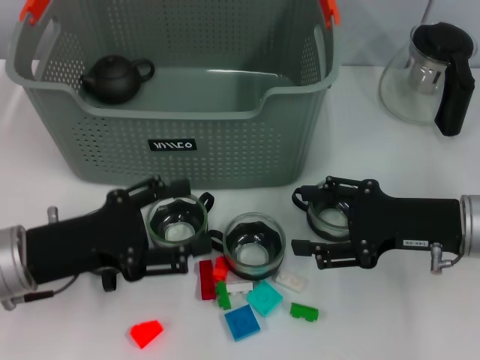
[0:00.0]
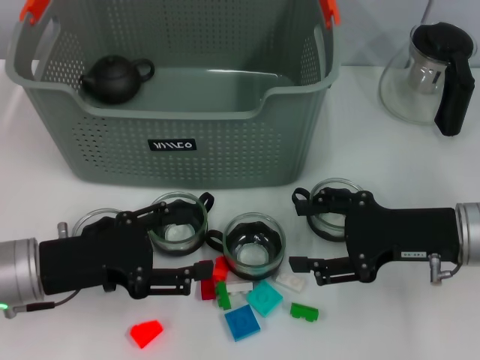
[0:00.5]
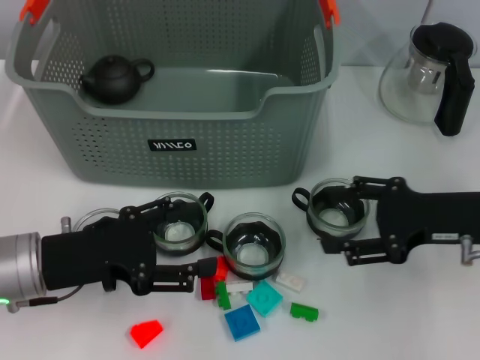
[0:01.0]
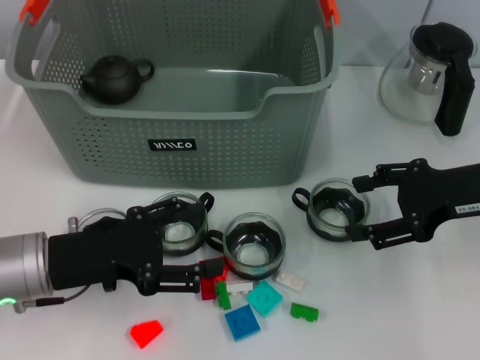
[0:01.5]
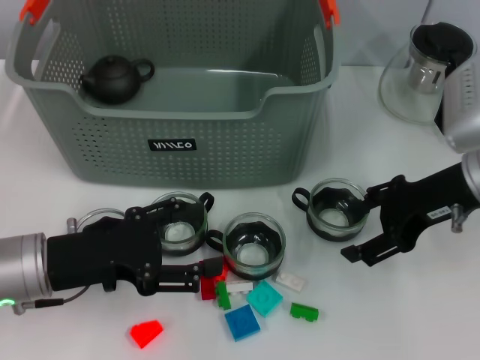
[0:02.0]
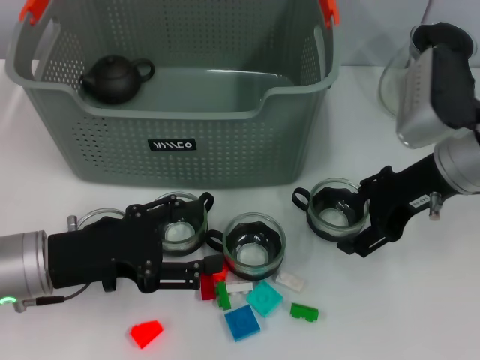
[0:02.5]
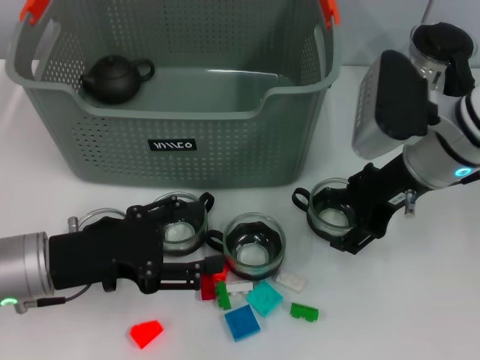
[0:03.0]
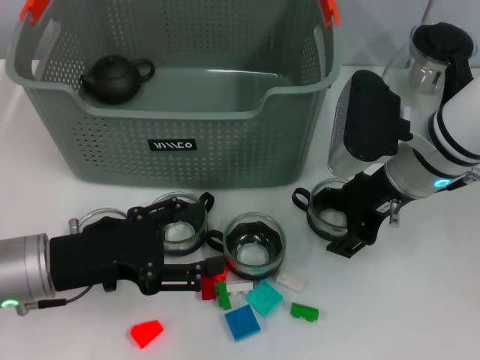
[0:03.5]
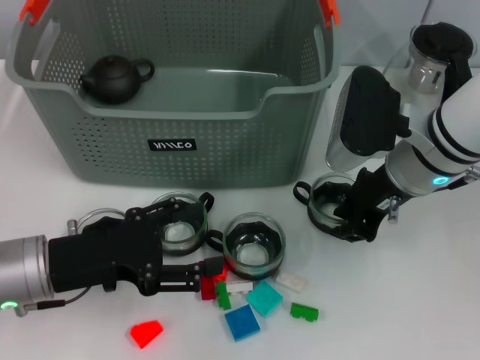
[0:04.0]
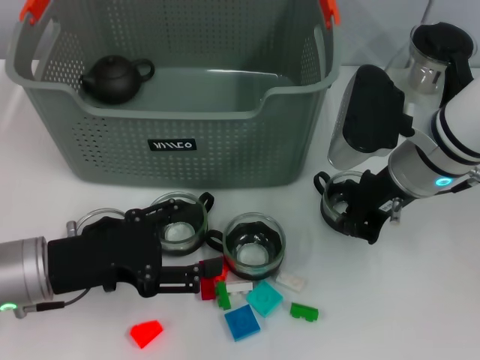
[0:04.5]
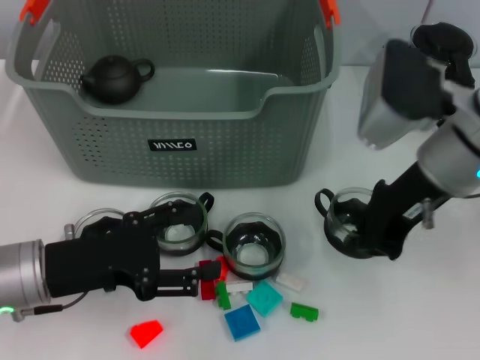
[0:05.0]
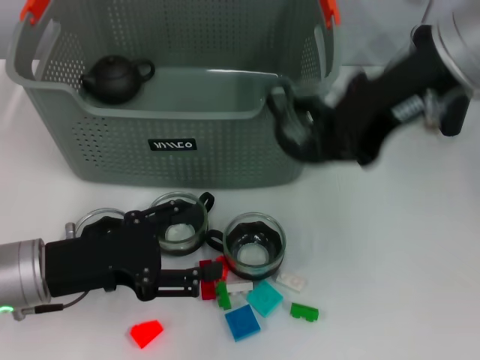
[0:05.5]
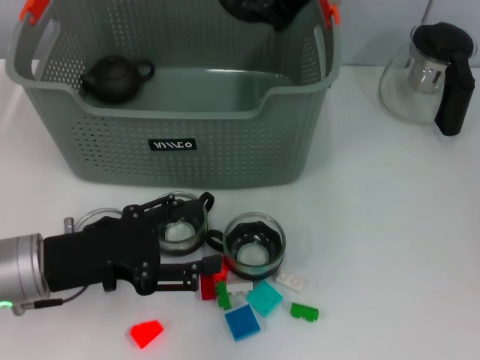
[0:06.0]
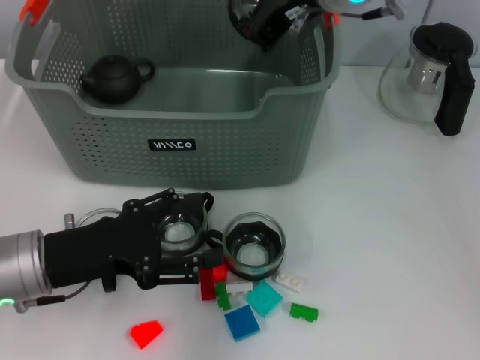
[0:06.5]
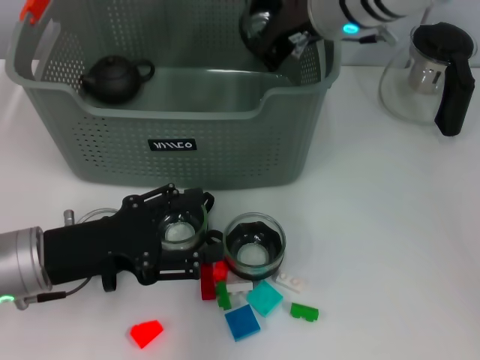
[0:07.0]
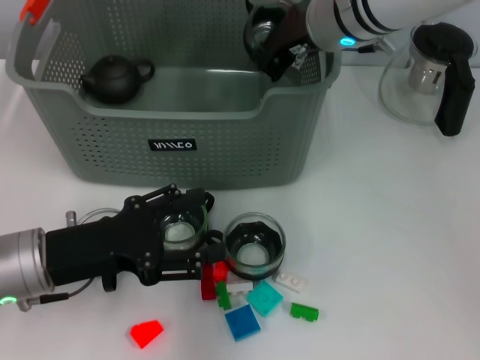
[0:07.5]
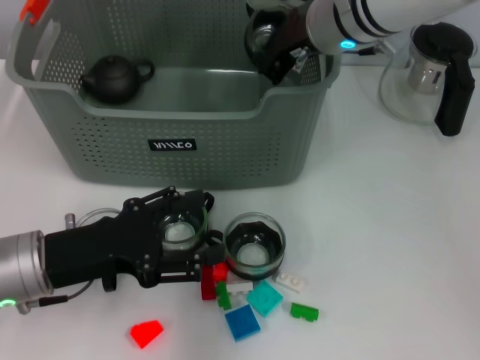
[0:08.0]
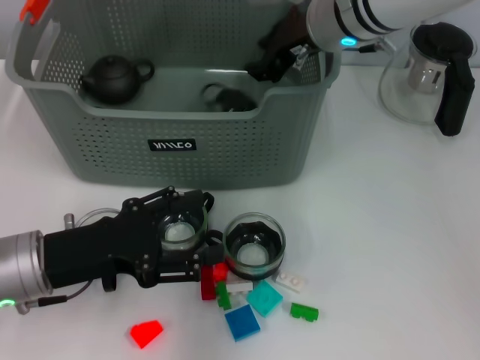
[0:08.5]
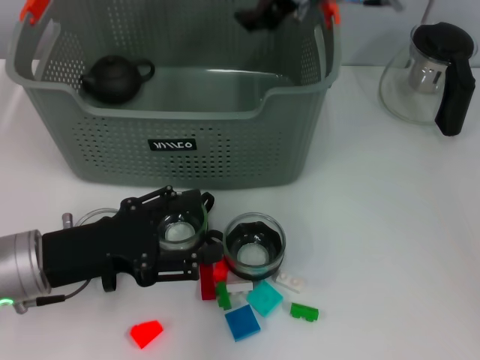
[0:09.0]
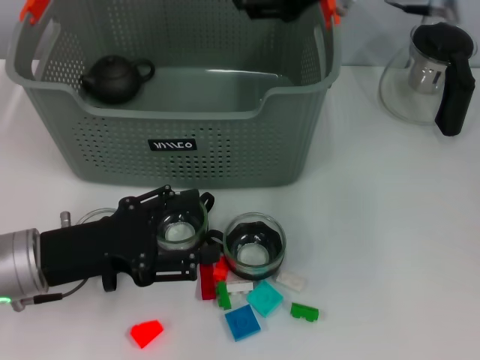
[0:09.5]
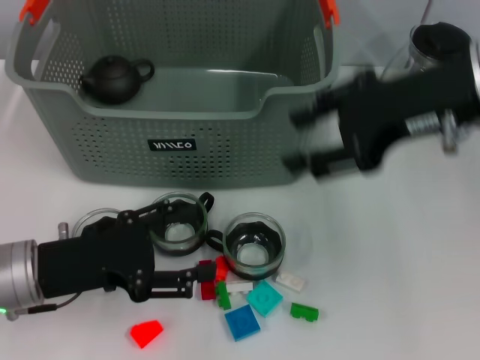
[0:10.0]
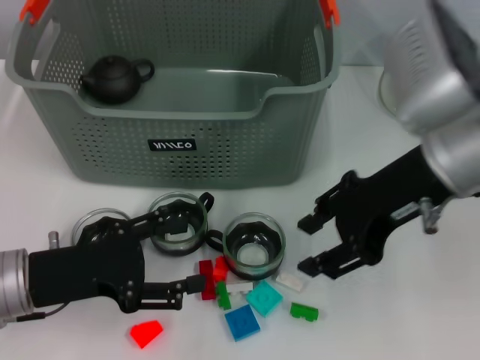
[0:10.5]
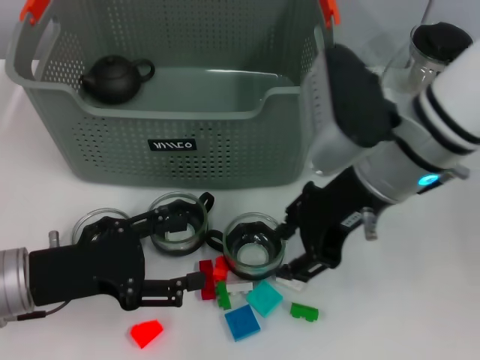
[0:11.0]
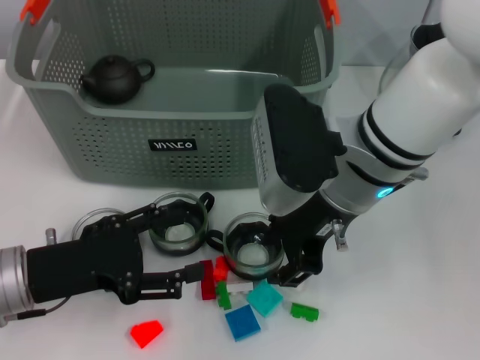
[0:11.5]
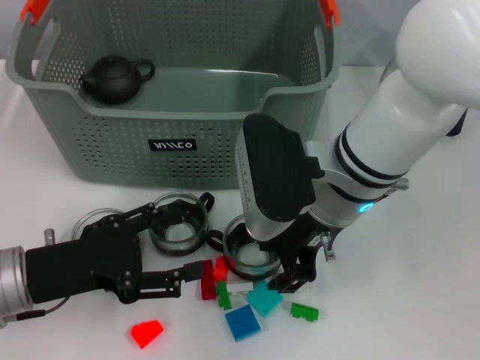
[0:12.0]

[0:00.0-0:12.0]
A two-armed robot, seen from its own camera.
Task of the whole recording: pick up the teacup on the table and place it into the storage bin, pick up the block on the table and place it into the storage bin.
Step, 0:00.0 to 0:04.5: Grasp the cup with right gripper.
Step, 0:05.0 to 0:08.0: Place the cup in the storage box with right gripper.
0:00.0 to 0:02.0: The right gripper travels upward by some 5 cm.
0:02.0 to 0:04.0: The right gripper travels to the left by approximately 10 cm, and closes.
0:04.0 to 0:06.0: The right gripper shifts about 20 cm upward, and closes up.
0:06.0 to 0:08.0: The right gripper goes roughly 15 cm downward and forward.
0:08.0 to 0:10.0: The right gripper moves backward, to the right and upward, some 15 cm, and opens up.
0:10.0 to 0:12.0: The right gripper goes some 15 cm to the left and downward.

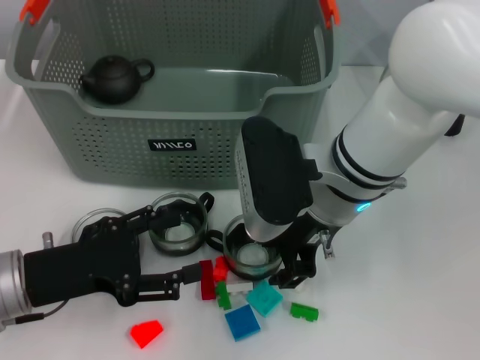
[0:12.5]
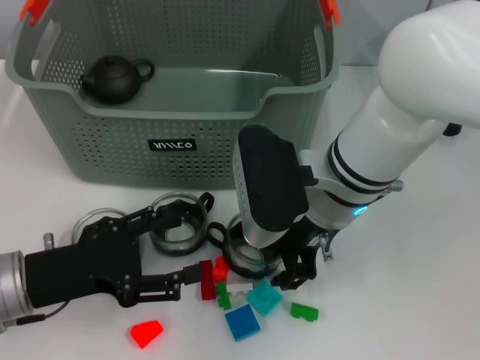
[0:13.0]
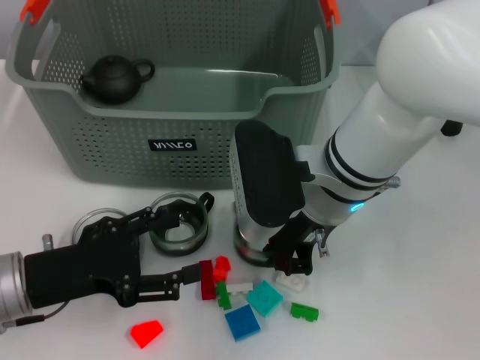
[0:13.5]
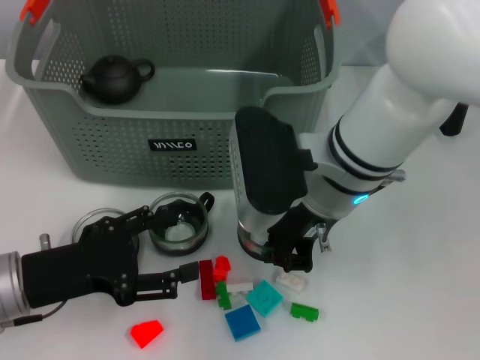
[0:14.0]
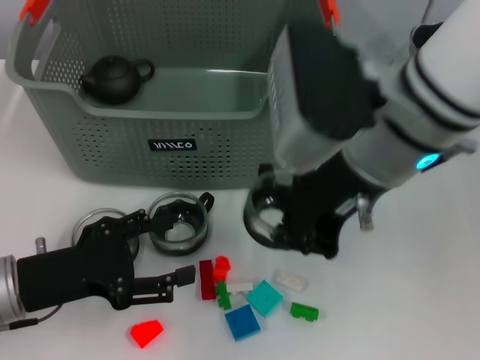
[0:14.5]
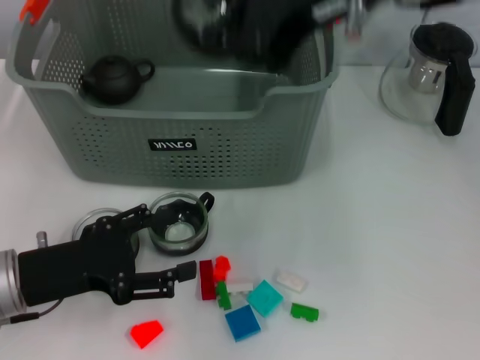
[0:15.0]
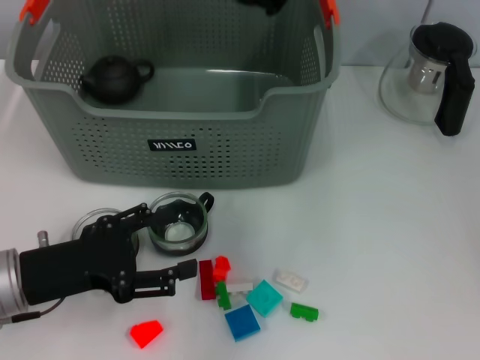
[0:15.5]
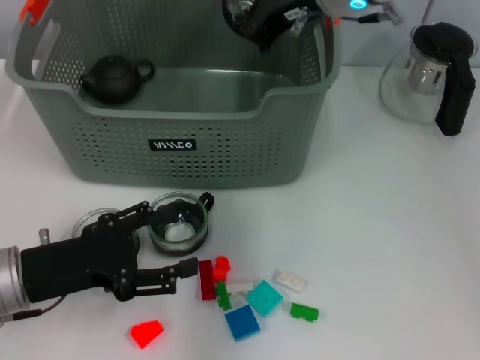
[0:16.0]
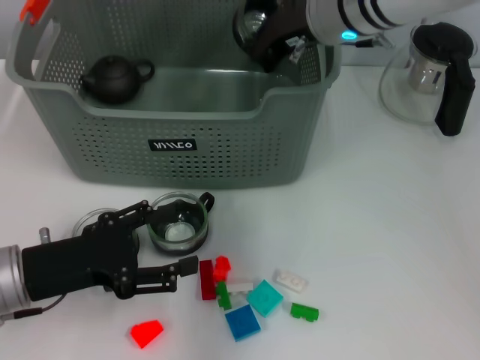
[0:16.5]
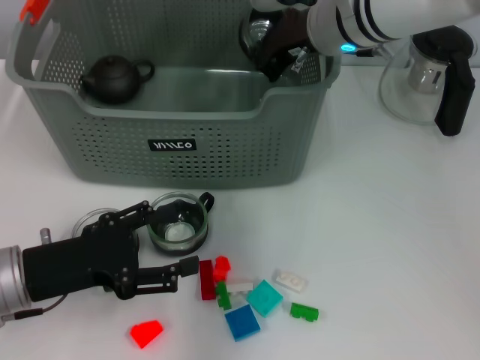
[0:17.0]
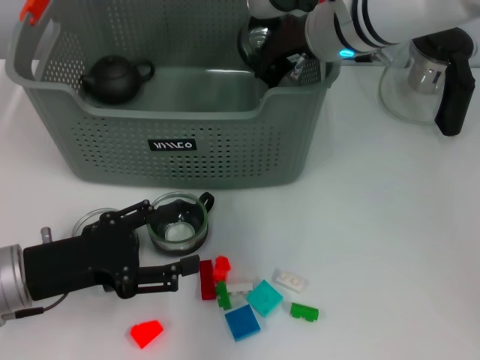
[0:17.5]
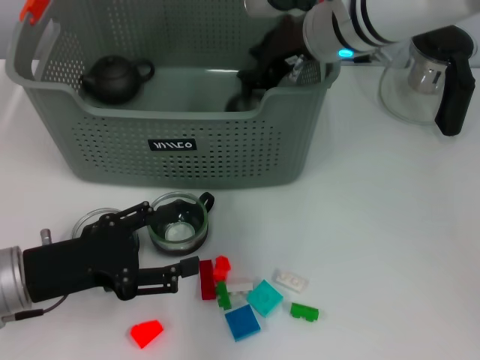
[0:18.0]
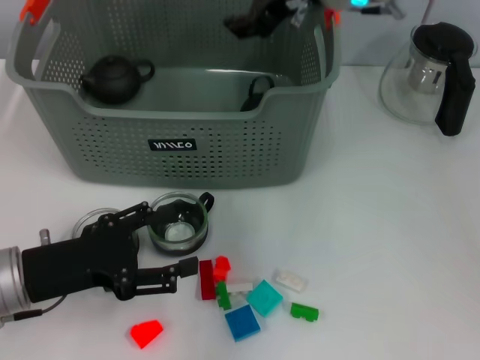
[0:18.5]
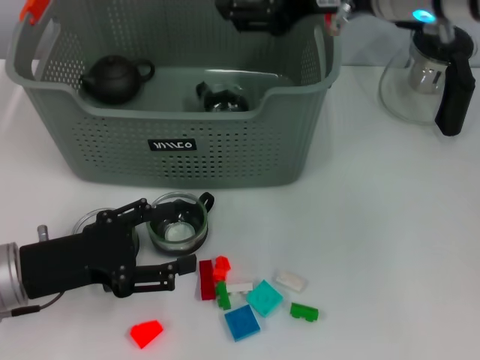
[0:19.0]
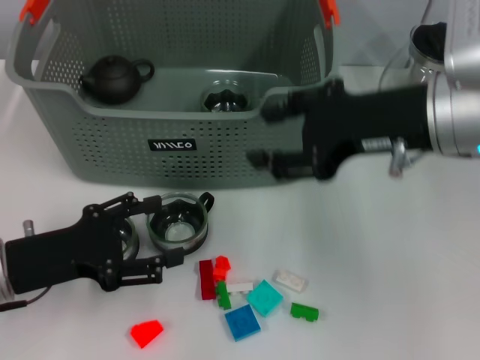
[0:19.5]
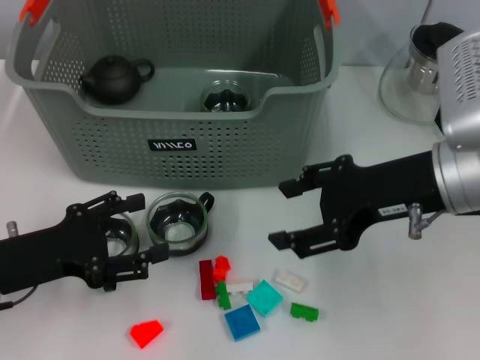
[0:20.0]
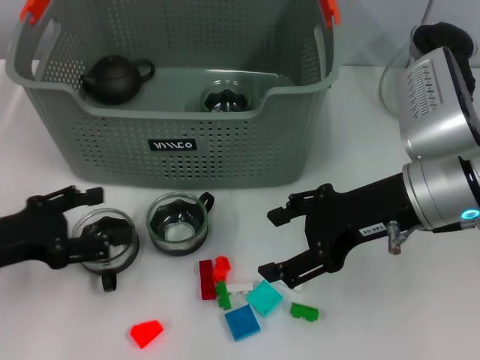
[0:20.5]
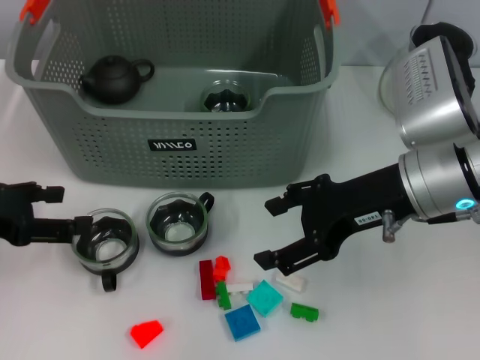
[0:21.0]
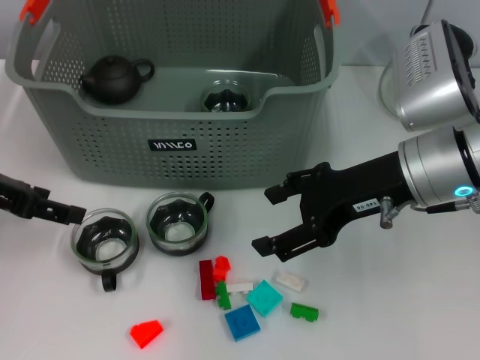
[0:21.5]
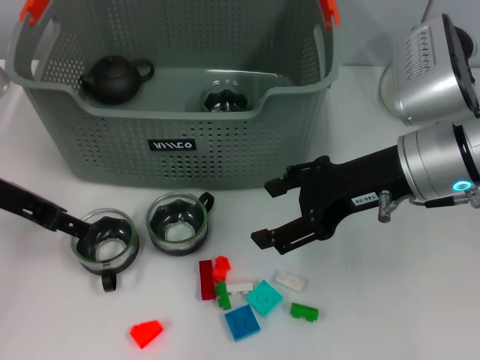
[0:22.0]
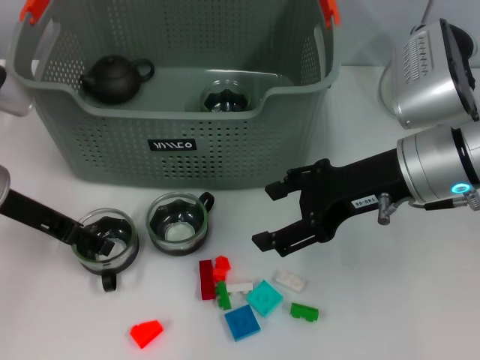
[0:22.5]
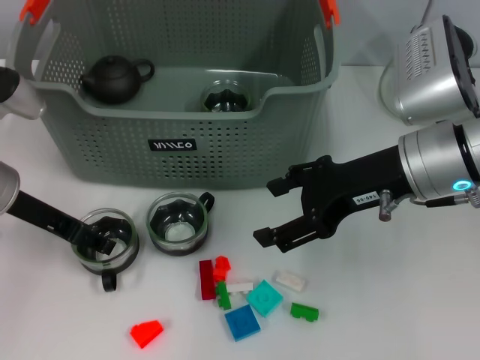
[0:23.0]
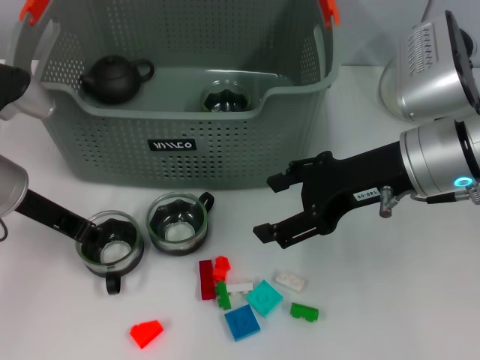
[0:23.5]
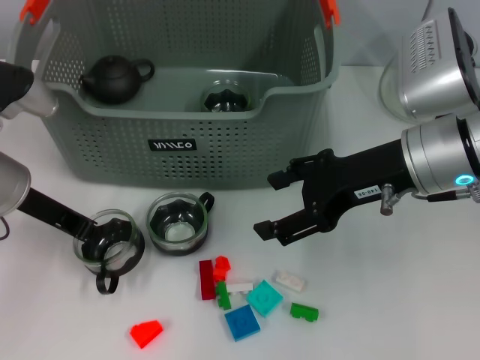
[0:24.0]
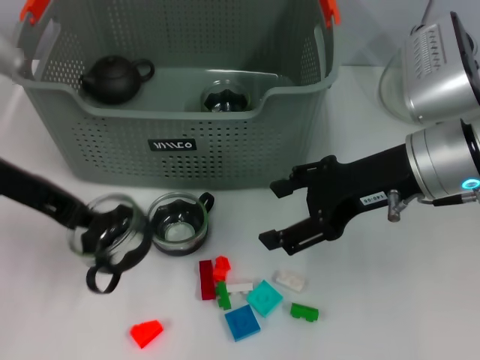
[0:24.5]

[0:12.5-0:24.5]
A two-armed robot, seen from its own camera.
Task of the whole recording: pick up the teacup on the table and place it into the storage bin, pick up the block on the table and place it into the storage bin.
Step, 0:14.0 to 0:17.5: Place the cup in the storage box with right gripper.
Step, 0:18.0 to 0:23.5: Grasp the cup with left gripper.
0:12.5 to 0:14.5: The right gripper travels upward by some 10 cm, and closes its fingers.
0:14.5 to 0:16.5: The right gripper heads forward, covering about 15 cm.
0:16.5 to 0:18.5: The right gripper opens up.
0:18.5 to 0:20.5: The left gripper travels to the left by about 5 cm; the right gripper moves backward, downward and to the right, approximately 20 cm.
0:20.5 to 0:22.5: The left gripper moves forward, roughly 10 cm.
0:22.5 to 0:24.5: The left gripper travels upward by about 5 cm, and closes its fingers.

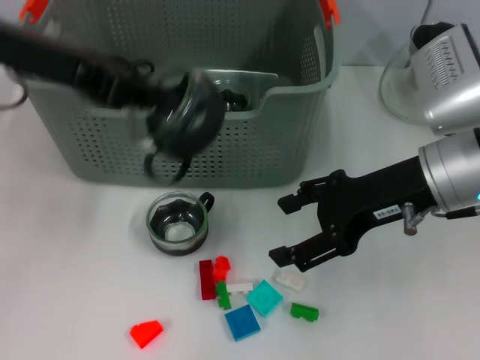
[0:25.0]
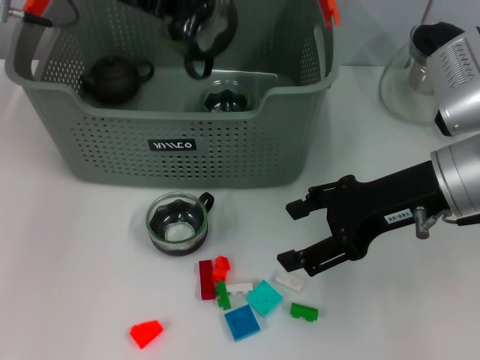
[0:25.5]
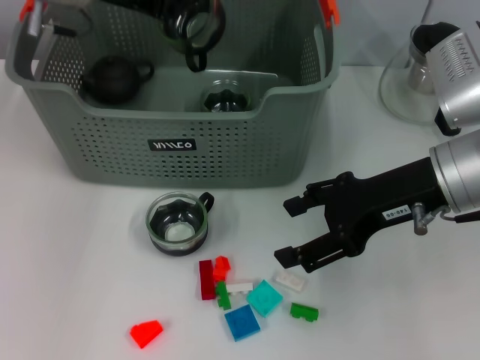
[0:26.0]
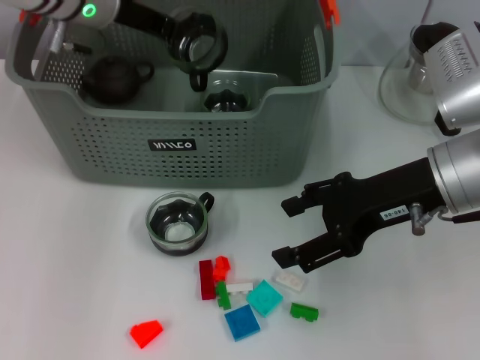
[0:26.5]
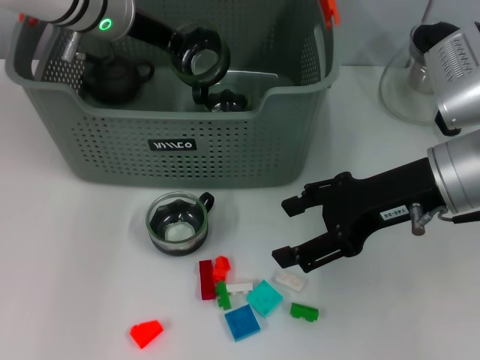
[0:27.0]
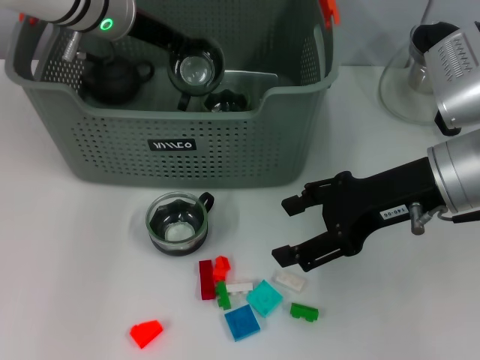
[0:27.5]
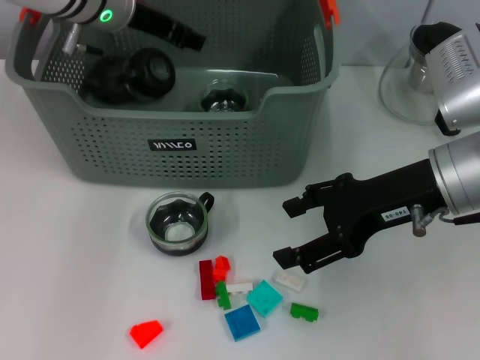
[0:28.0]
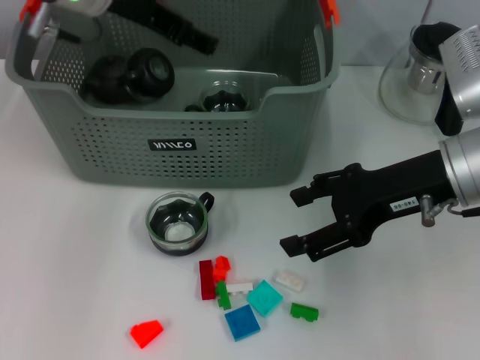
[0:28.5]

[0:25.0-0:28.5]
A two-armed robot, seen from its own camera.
Task of the whole recording: pick up the teacup on the table and place it into the storage bin, pick up the block on the table and place it into the storage bin.
Step, 0:25.0 to 0:27.5: Place the cup in the storage box with left gripper.
0:25.0 to 0:27.0: The left gripper shifts roughly 15 cm forward, downward and to the right.
0:27.0 to 0:28.5: The left gripper heads upward, covering about 5 cm, and opens.
